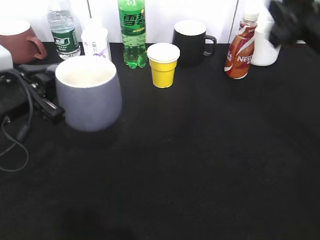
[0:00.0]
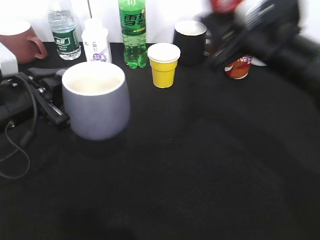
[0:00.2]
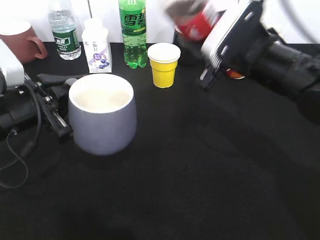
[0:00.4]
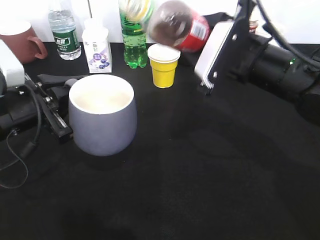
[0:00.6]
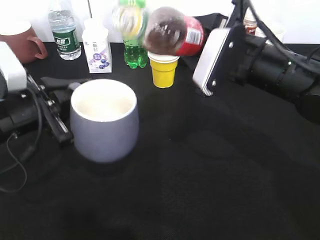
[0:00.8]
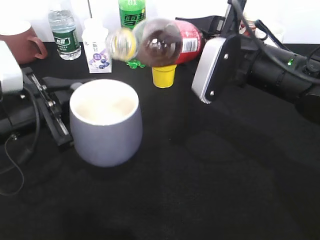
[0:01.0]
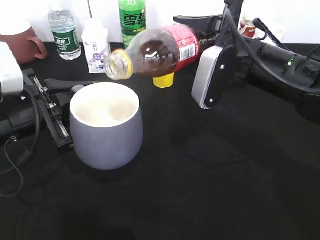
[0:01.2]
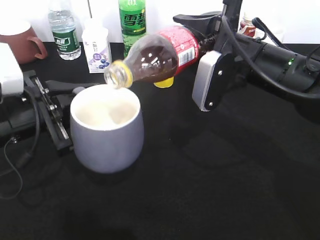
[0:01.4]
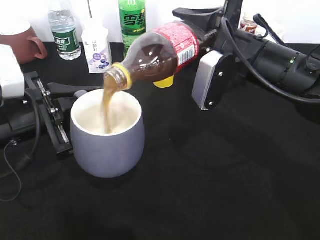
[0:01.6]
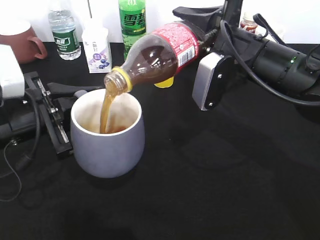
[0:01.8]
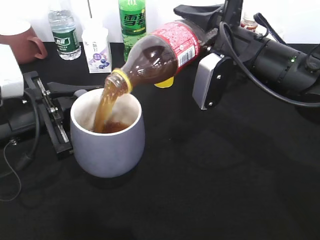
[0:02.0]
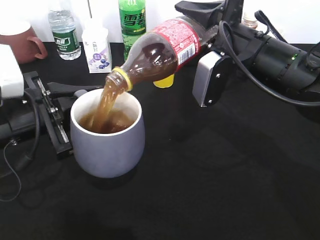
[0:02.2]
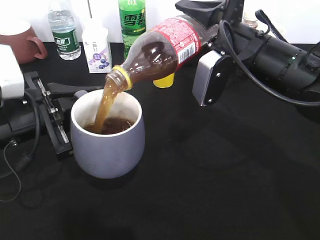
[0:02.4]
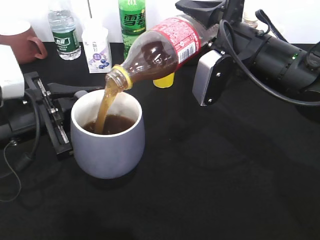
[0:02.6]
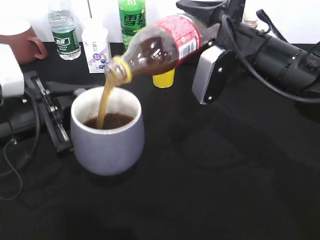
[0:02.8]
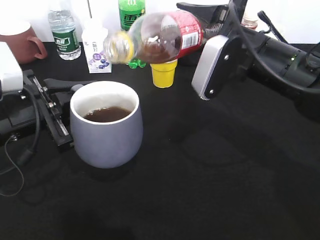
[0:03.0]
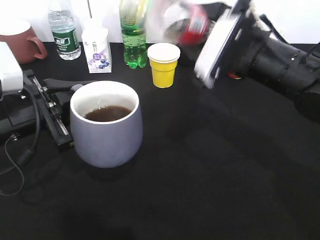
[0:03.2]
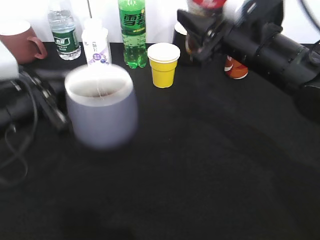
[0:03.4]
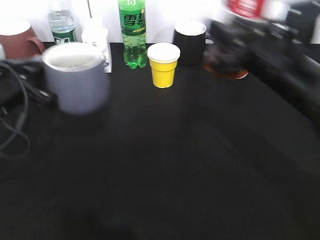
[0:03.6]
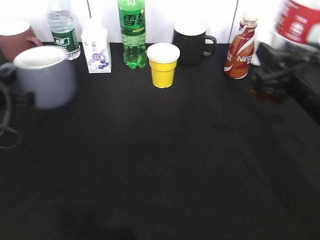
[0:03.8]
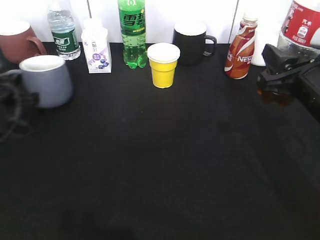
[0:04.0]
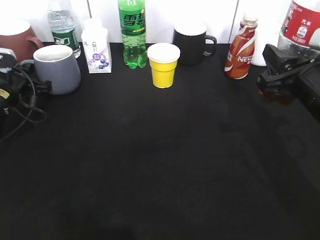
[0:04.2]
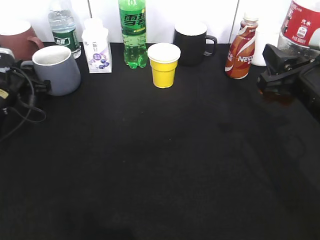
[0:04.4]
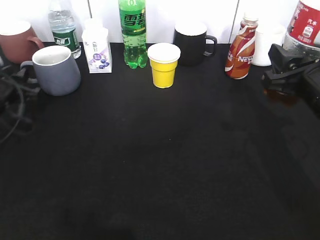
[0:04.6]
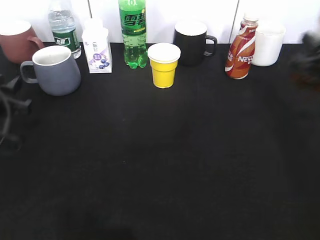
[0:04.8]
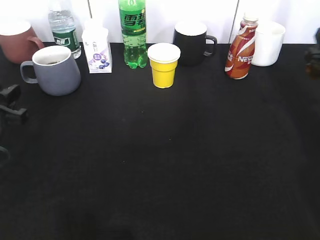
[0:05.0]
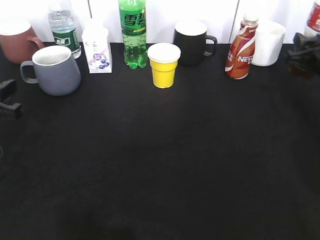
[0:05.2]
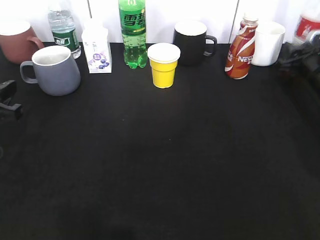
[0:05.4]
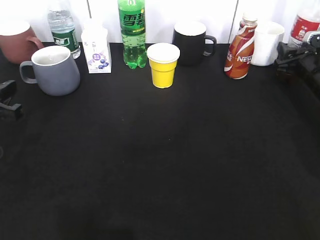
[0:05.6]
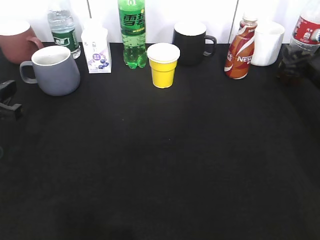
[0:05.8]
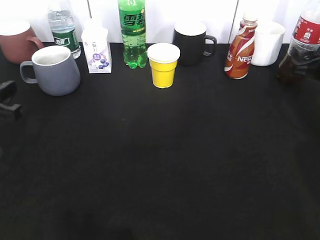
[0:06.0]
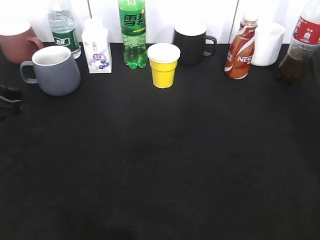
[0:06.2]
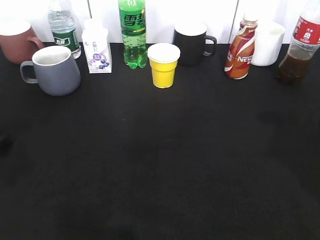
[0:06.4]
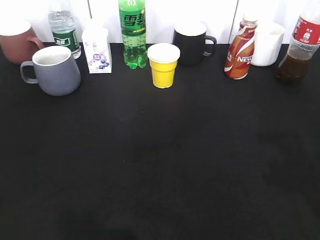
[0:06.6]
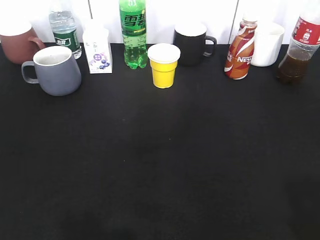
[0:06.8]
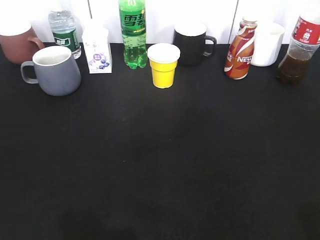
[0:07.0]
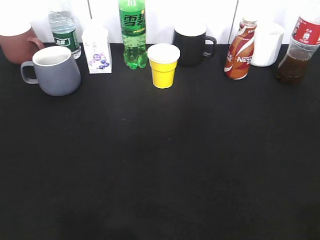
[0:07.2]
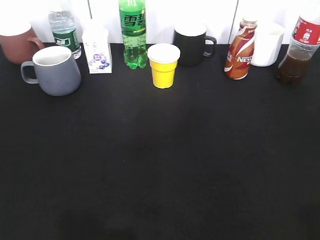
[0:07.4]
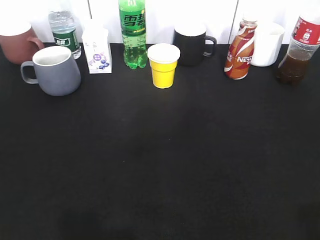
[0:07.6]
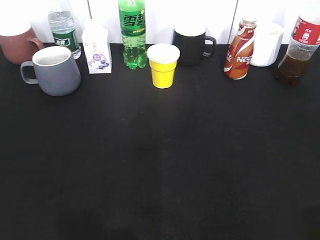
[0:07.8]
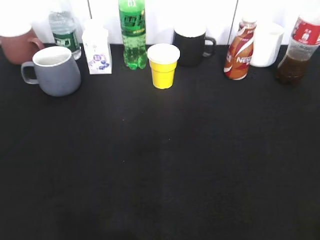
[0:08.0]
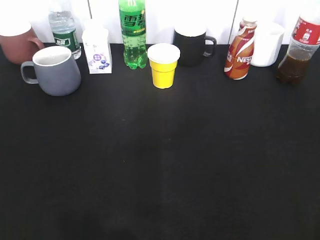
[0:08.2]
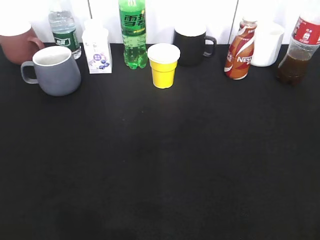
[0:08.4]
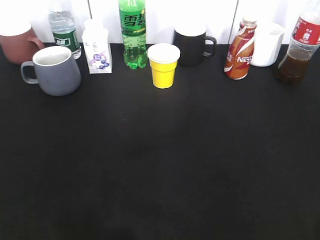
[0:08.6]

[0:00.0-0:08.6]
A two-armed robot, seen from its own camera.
Step, 0:00.0 to 0:02.0: Pour the cola from bottle to cup with right gripper.
Step, 0:02.4 to 0:04.6: Place the grey cup on the table with left gripper.
Step, 0:04.8 to 0:06.2: Place the cola bottle on the table with right gripper.
0:00.0 to 0:01.4: The right gripper goes about 10 cm to the left.
0:01.4 to 0:02.8: The grippers make only small movements.
0:02.8 to 0:04.4: The left gripper heads forward, to the left and downward, covering about 20 cm, and opens its fingers. Meanwhile the right gripper goes roughly 10 cm to the right and backward.
0:04.4 to 0:05.8: The right gripper travels forward, to the right and downward by about 20 cm, and opens its fingers; the left gripper heads backward and upward, covering approximately 15 cm.
0:05.8 to 0:07.2: The right gripper is displaced backward and upward by some 40 cm, while the left gripper goes roughly 25 cm backward and upward, and opens.
